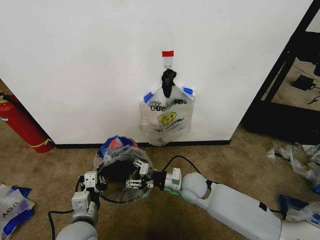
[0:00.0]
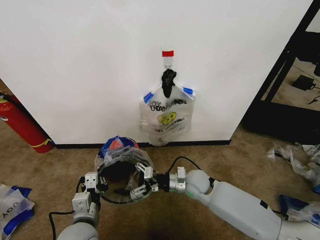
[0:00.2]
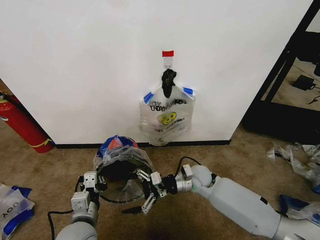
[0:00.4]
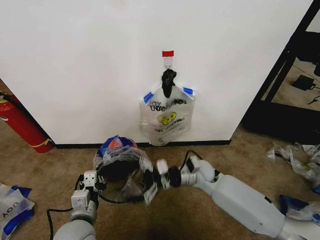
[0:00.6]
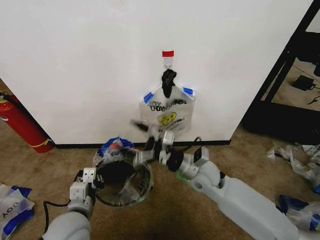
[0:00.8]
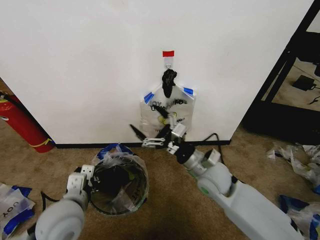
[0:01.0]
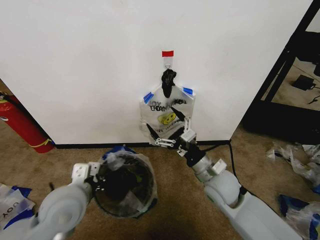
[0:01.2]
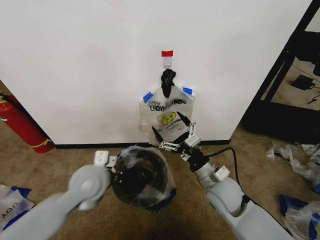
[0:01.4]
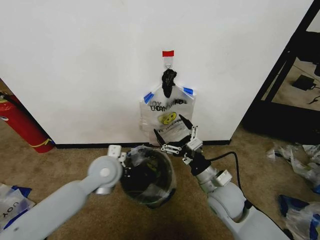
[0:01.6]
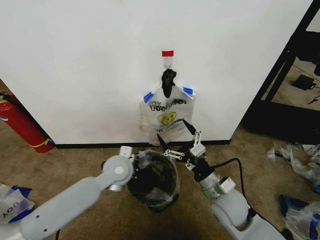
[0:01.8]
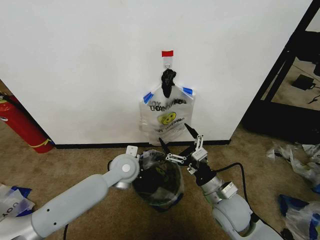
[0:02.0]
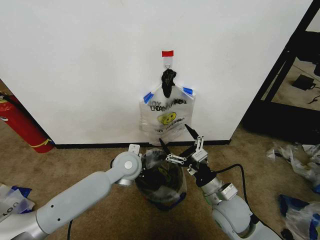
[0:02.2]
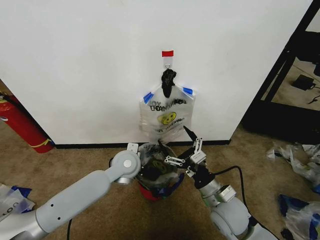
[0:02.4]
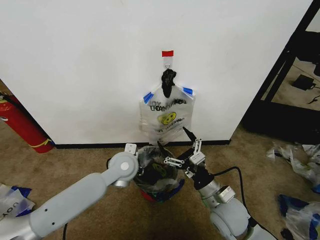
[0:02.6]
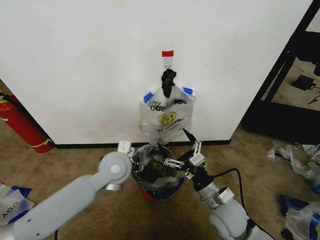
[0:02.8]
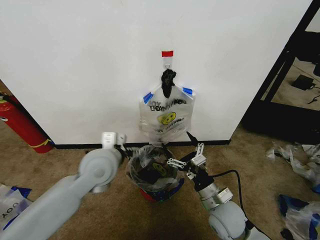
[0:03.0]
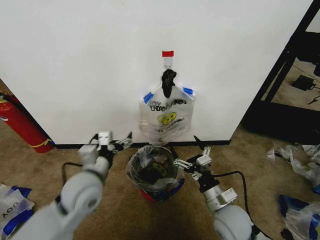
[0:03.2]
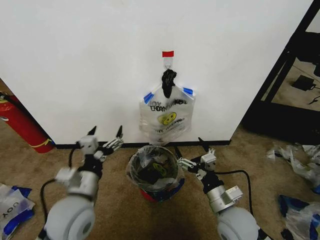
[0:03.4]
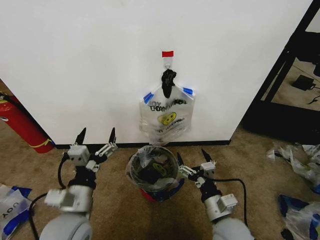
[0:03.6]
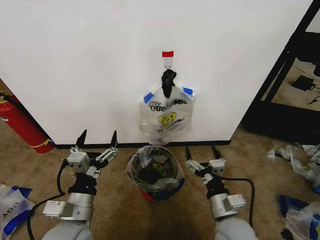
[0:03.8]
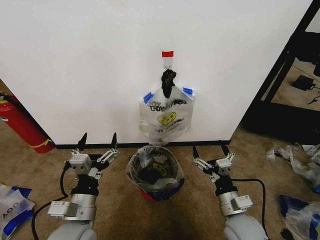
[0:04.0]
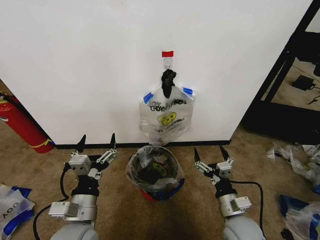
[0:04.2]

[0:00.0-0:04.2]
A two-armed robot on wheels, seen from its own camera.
Task of the whole recording: Pick up the garbage bag from the wall and place it over the trash bin.
0:00.0 to 0:01.4: The left gripper moves forward and upward, roughly 15 cm, while the right gripper moves upward, to the right and backward, some 10 cm, and opens its fingers.
0:01.4 to 0:02.8: The right gripper is displaced backward by approximately 5 cm. The left gripper is displaced to the right by roughly 5 cm, and opens up.
0:02.8 to 0:04.2: The right gripper changes place by about 5 cm, while the left gripper travels backward by some 15 cm.
